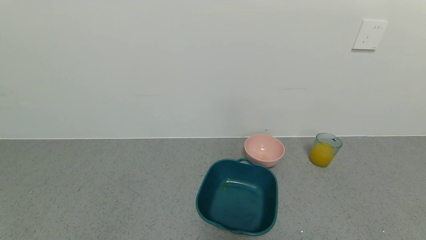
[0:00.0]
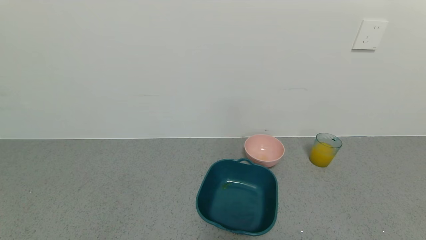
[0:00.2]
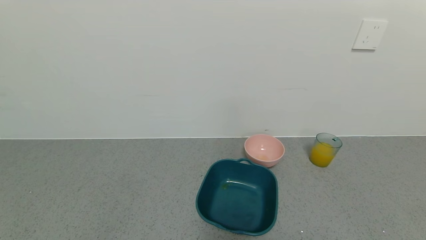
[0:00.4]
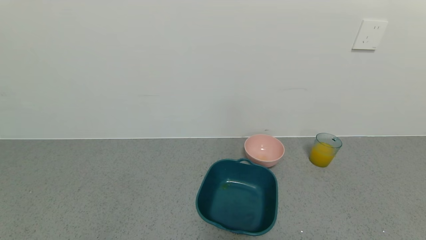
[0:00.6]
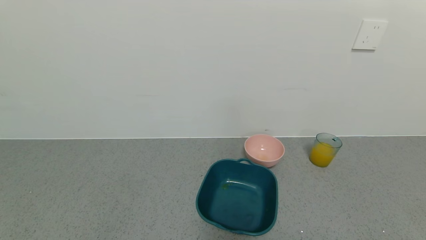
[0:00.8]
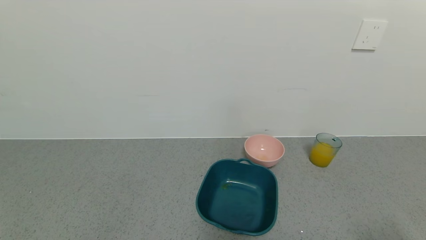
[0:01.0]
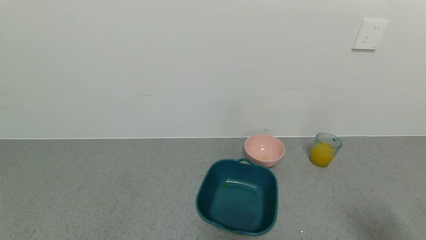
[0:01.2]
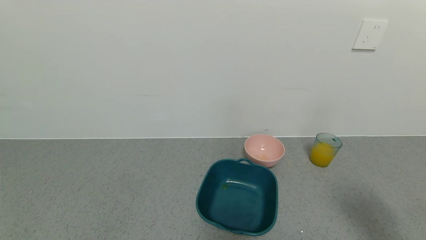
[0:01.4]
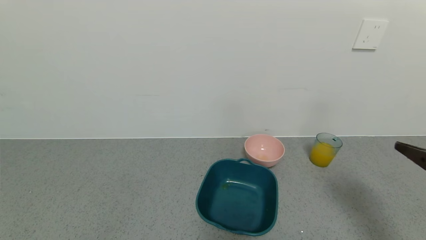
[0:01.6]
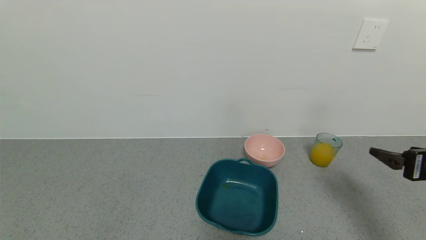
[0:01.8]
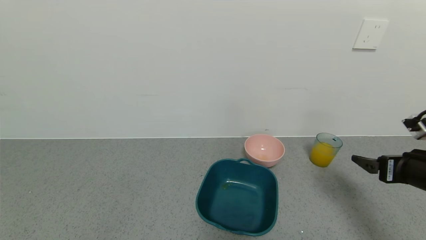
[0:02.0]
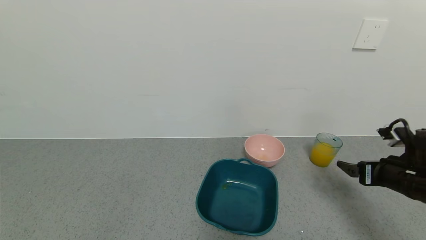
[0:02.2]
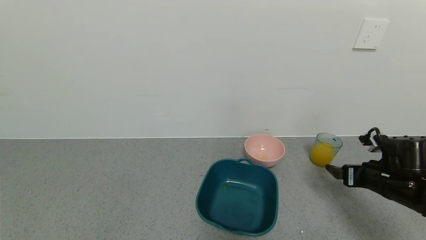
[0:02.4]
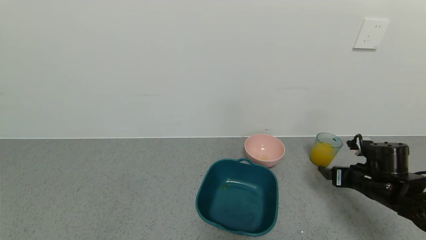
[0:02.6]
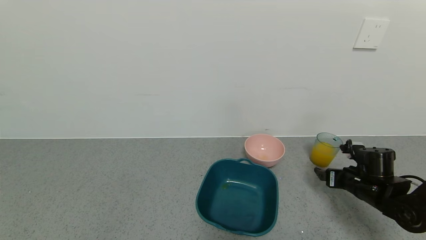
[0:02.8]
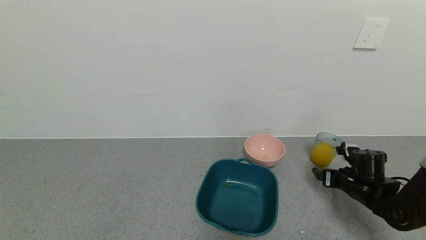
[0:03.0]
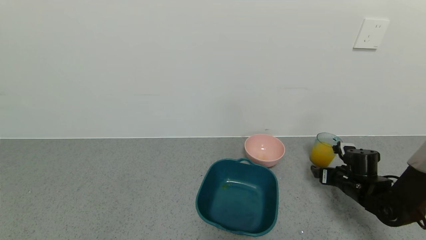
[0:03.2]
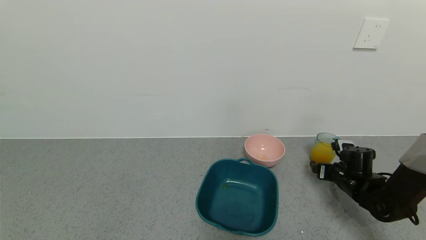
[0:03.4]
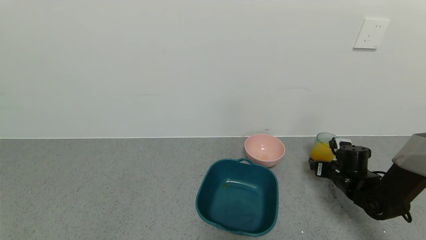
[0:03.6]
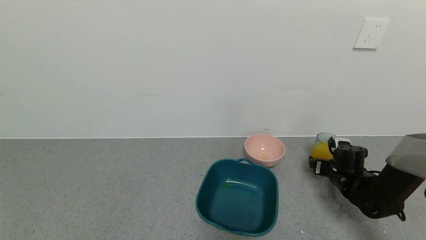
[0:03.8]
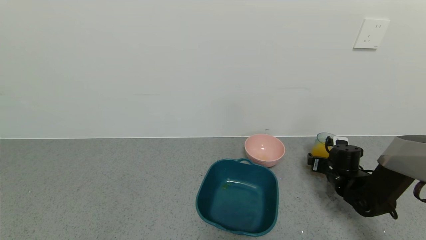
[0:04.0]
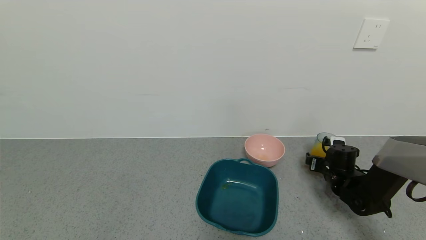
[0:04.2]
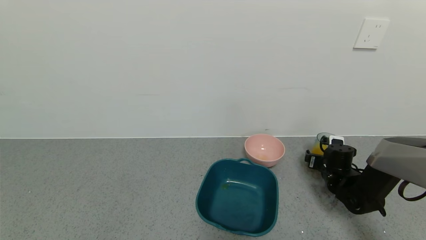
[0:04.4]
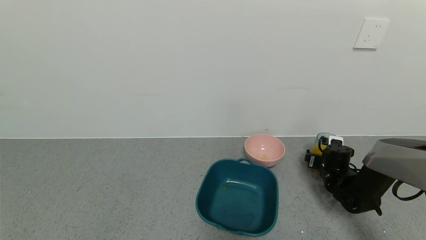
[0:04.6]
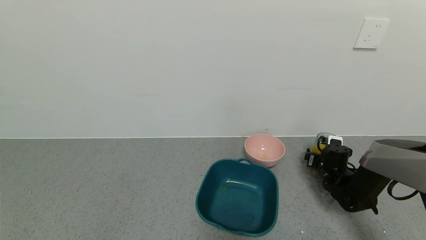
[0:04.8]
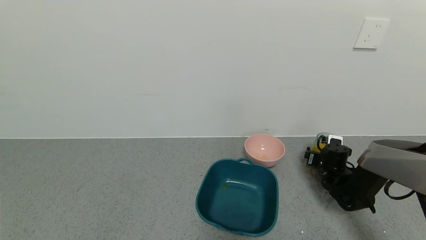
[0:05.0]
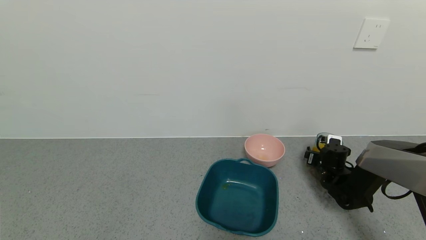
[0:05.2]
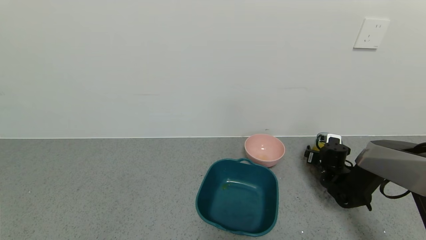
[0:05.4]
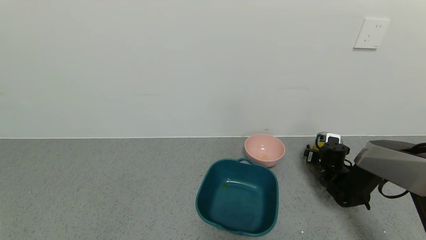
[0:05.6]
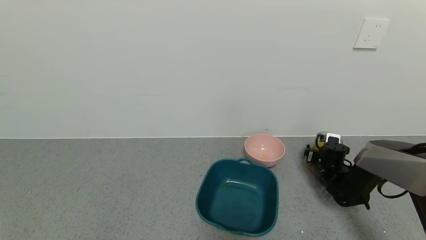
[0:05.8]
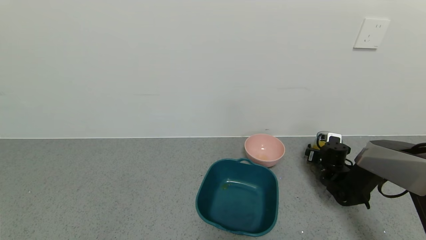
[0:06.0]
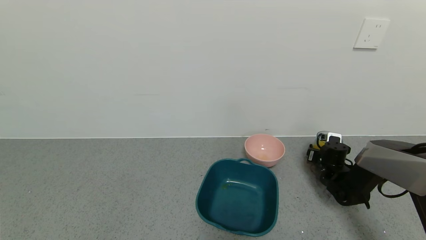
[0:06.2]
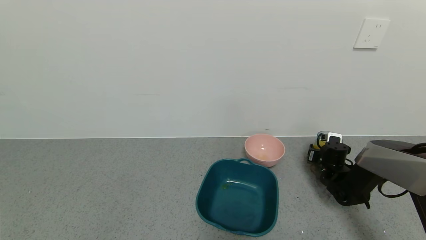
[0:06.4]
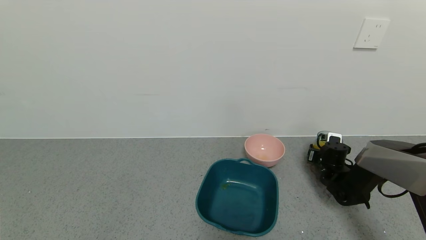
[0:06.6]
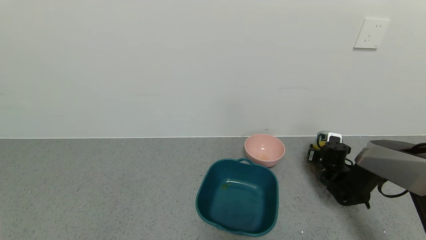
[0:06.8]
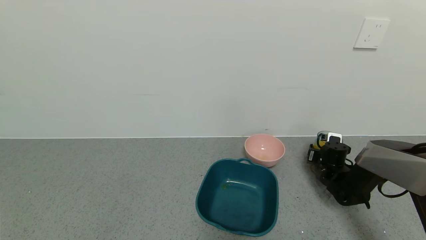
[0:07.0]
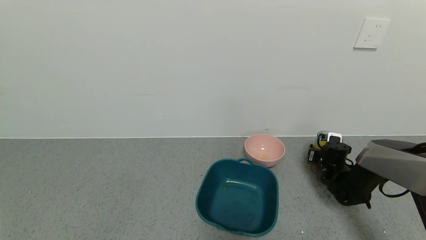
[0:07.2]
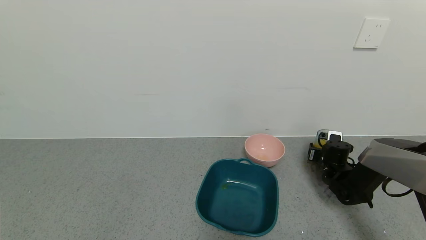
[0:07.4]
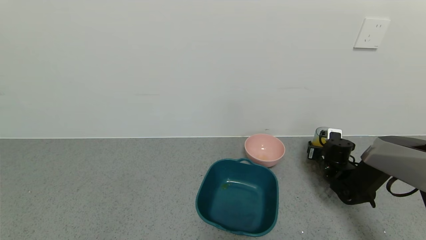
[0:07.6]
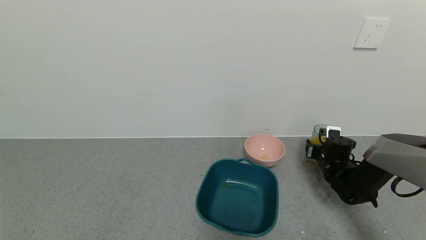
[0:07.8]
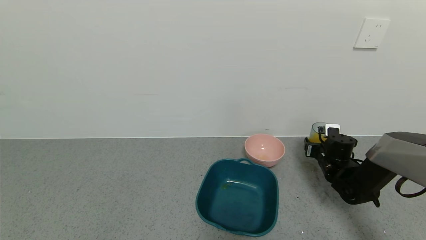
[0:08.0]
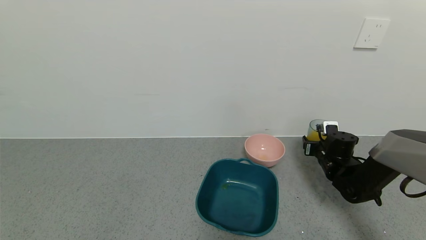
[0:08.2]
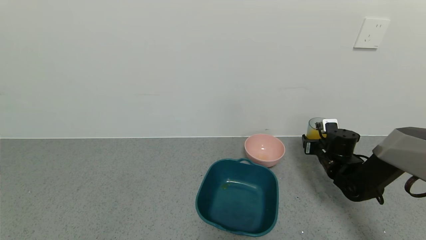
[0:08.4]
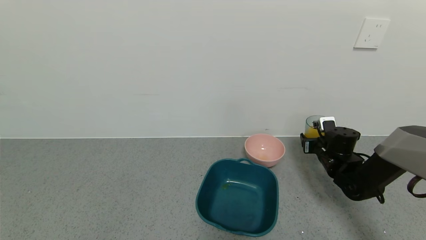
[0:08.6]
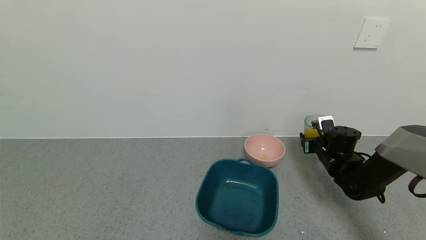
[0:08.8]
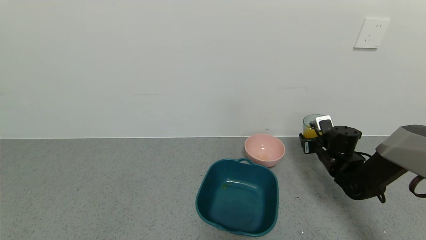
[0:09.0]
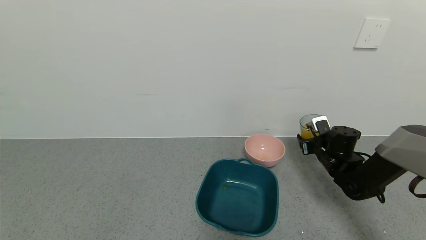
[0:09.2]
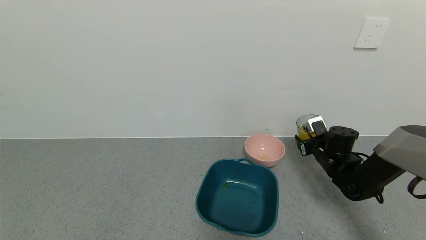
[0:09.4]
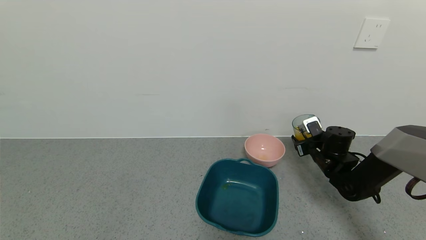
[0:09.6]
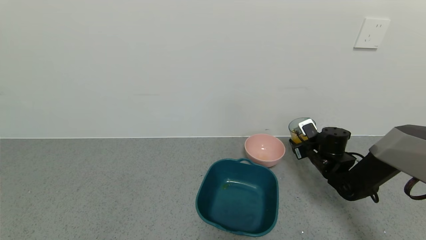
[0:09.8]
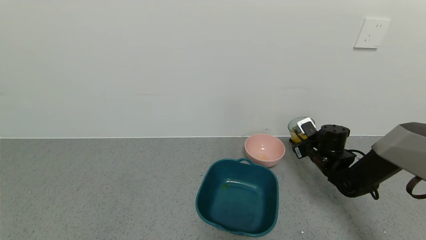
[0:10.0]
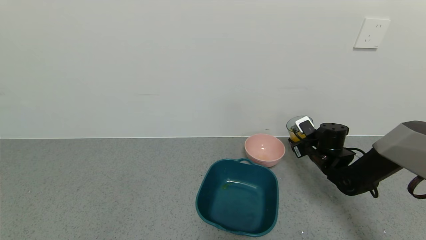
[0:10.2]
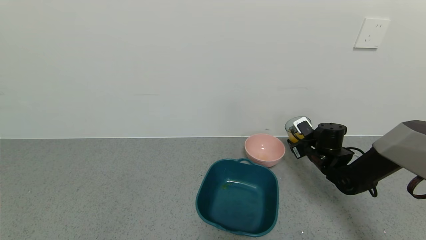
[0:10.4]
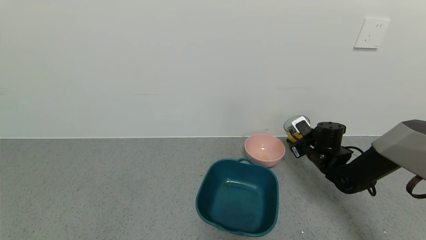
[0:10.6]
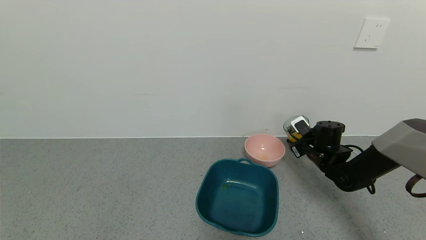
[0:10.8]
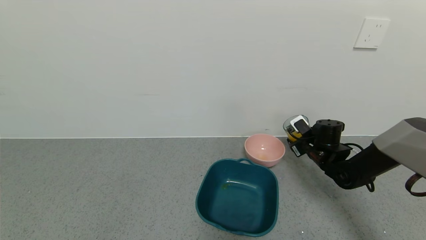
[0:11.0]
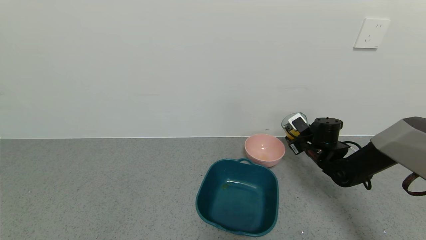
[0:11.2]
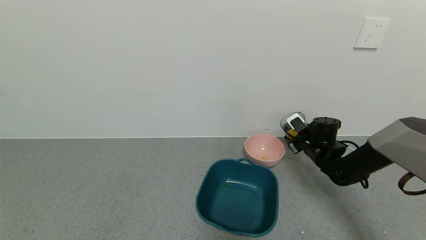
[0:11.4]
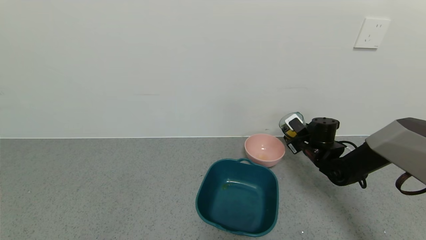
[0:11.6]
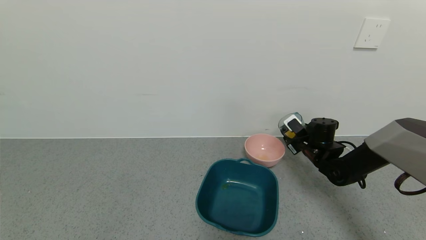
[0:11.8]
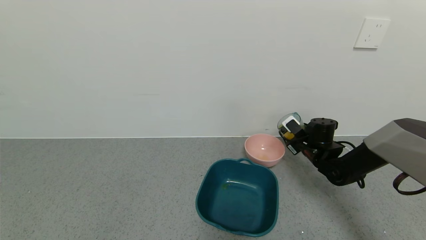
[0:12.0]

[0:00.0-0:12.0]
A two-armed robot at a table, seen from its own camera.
Task of the whole recording: use a gripper to pick up the cup and pour the liquid into a bowl or tray.
Step, 0:00.0 to 0:06.2: Pick up blue cup filled with orange juice with right gripper.
0:00.0 to 0:01.6: The right gripper is displaced forward and upward by roughly 25 cm.
0:01.6 to 0:03.0: The right gripper is displaced downward and forward by roughly 25 cm.
0:03.0 to 0:04.4: The right gripper is displaced forward by some 5 cm.
0:04.4 to 0:06.0: The grippers make only small movements.
0:06.0 to 0:07.6: The right gripper closes.
0:07.6 to 0:09.0: The right gripper is displaced upward by some 5 cm.
0:09.0 to 0:10.4: The grippers stay close to where they were, moving slightly.
0:10.4 to 0:12.0: The grippers move only a little.

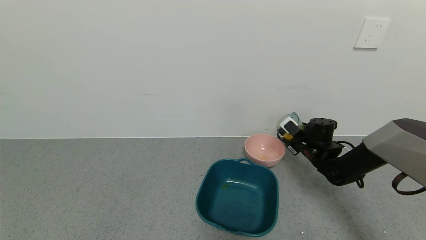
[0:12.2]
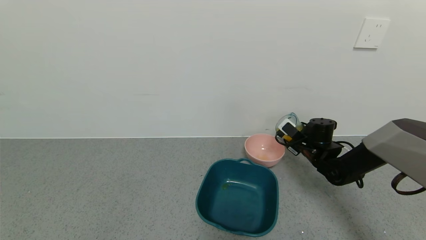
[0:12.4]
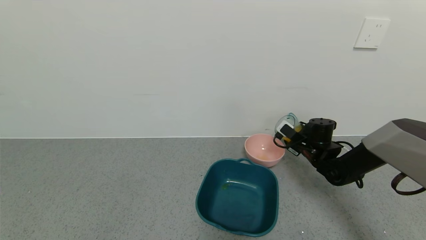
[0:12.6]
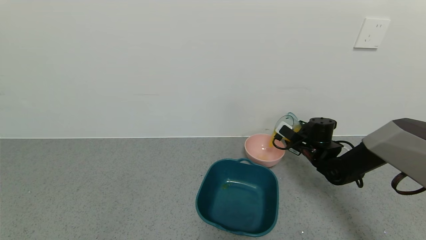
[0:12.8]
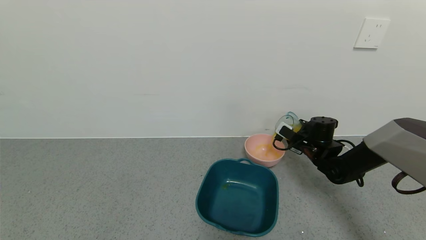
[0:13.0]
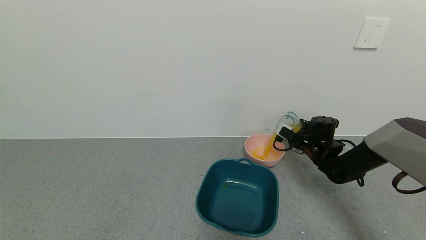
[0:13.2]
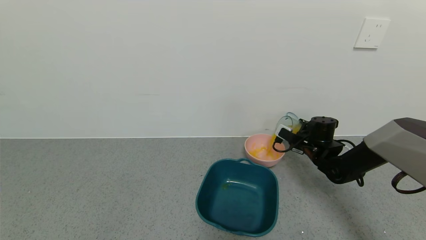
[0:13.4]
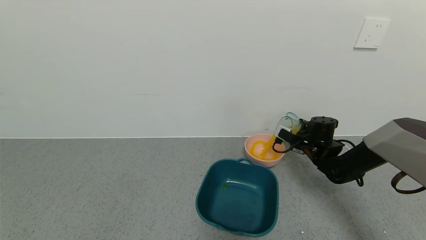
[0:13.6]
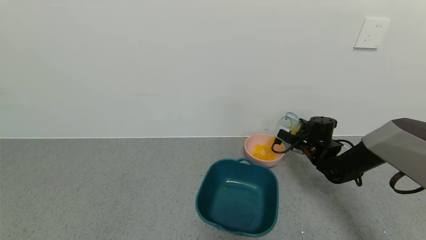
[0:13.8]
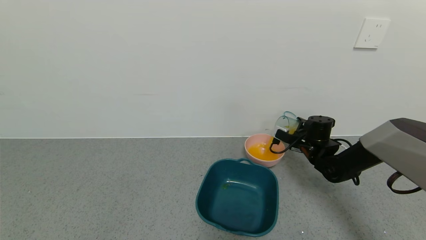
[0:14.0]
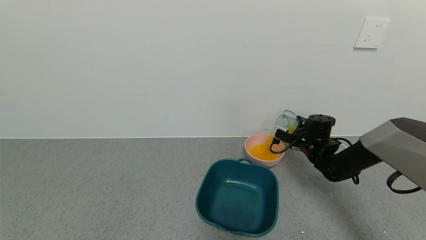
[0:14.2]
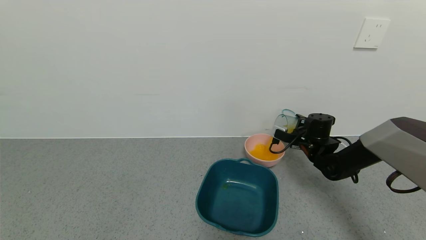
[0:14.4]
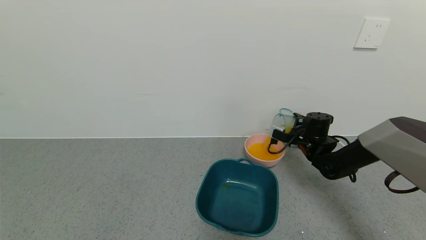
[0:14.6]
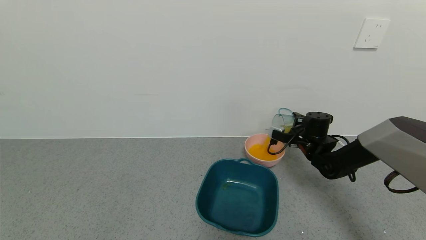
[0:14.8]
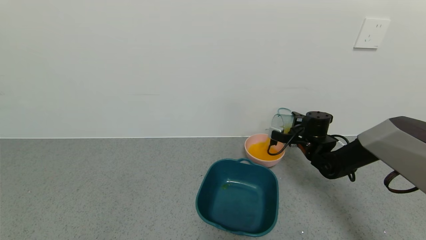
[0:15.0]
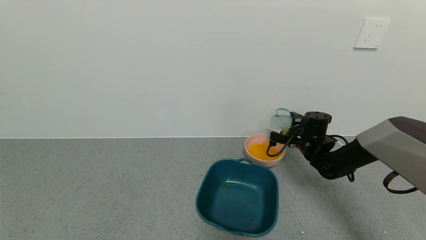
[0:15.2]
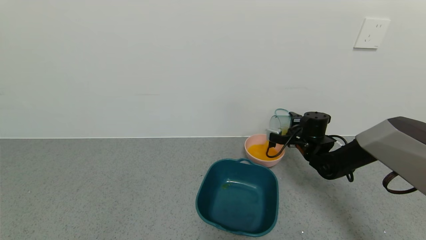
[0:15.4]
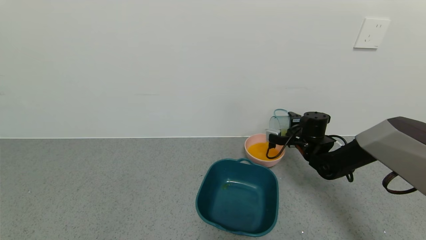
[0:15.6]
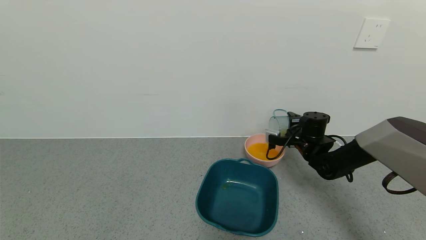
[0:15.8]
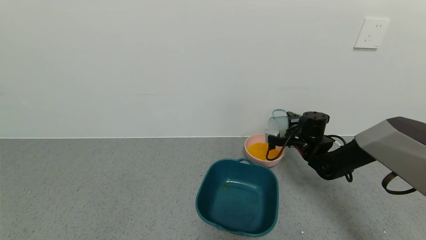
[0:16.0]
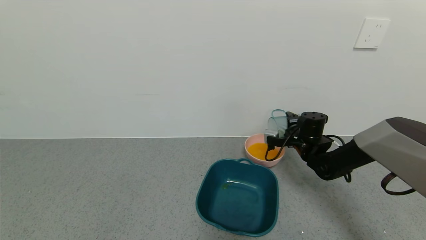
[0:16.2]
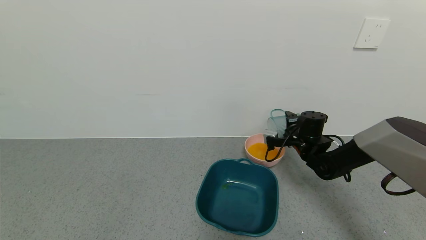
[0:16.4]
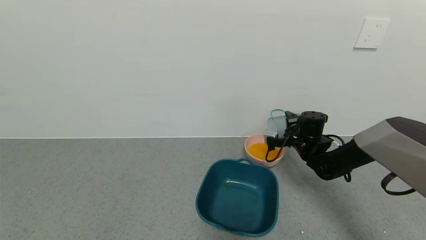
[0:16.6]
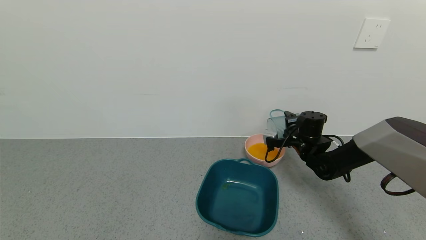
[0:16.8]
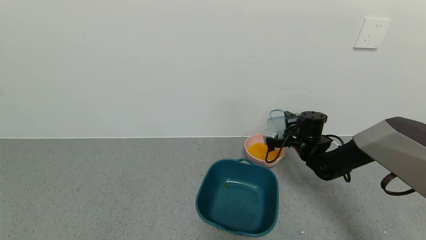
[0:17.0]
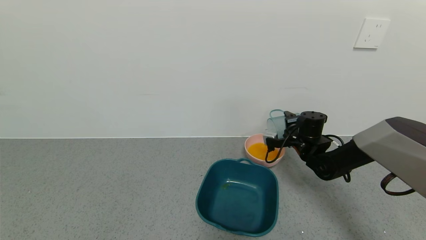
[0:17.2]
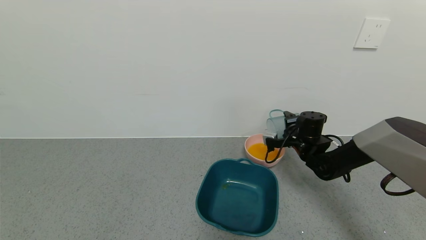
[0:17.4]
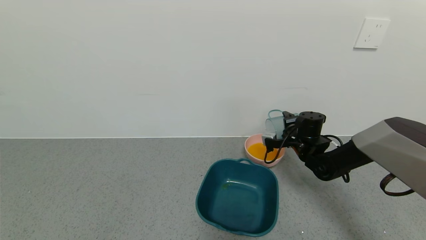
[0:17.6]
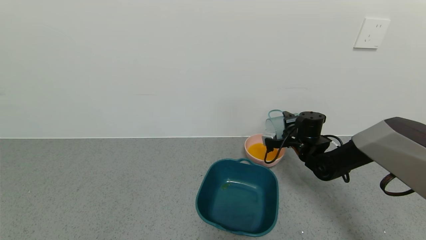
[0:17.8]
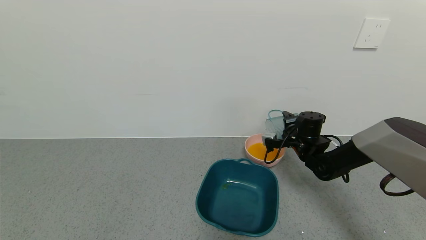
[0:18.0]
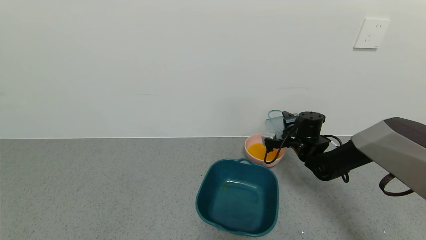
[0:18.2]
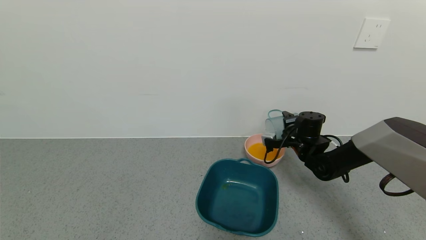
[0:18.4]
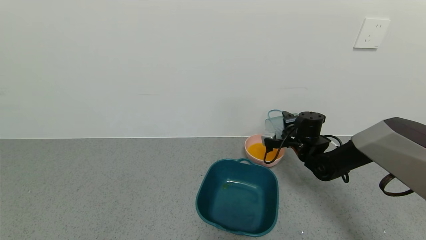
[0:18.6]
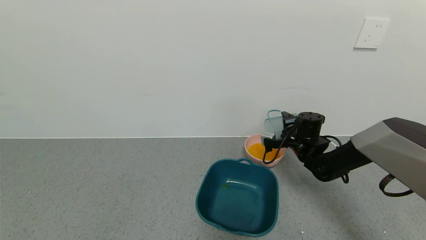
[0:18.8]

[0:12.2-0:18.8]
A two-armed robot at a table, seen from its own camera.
Task of the whole recording: use a gripper to pick up the cup and pour the liquid into a bowl or tray.
Step, 0:12.2 to 0:18.6: Pour the orange juice into the pink bowl with right gripper.
0:13.8 to 0:15.4: The grippers move only a little.
0:15.4 to 0:17.2: The grippers make only small movements.
0:17.2 to 0:18.8: The two grippers keep their place.
